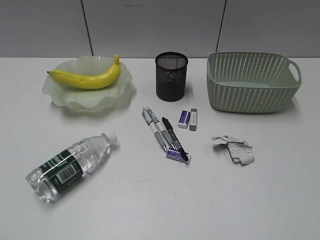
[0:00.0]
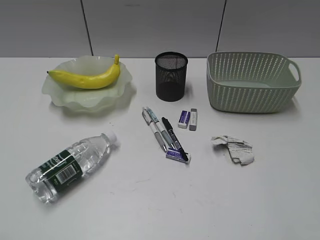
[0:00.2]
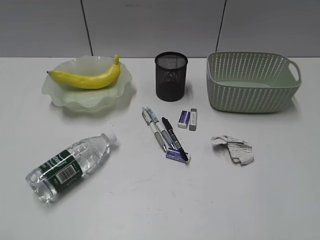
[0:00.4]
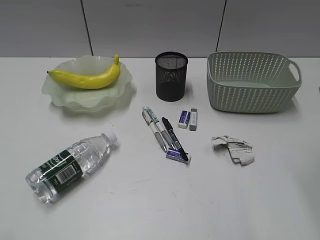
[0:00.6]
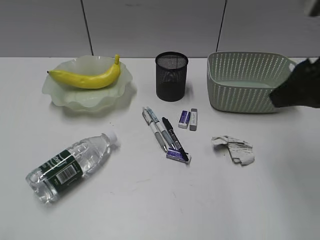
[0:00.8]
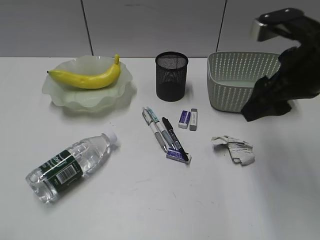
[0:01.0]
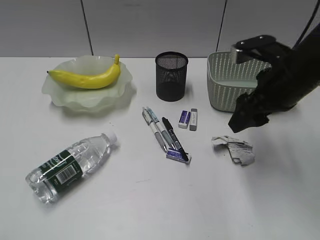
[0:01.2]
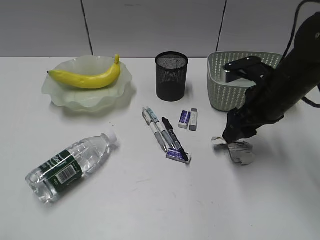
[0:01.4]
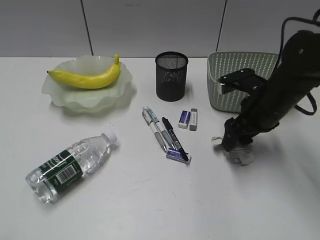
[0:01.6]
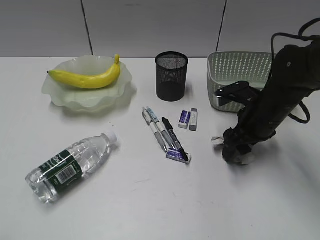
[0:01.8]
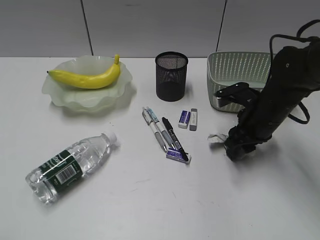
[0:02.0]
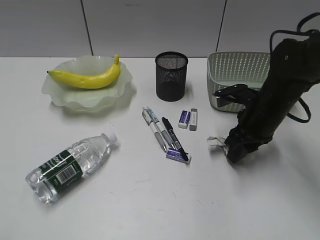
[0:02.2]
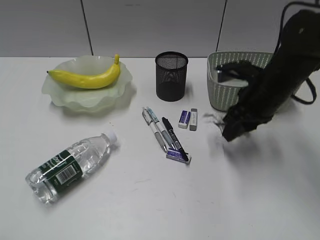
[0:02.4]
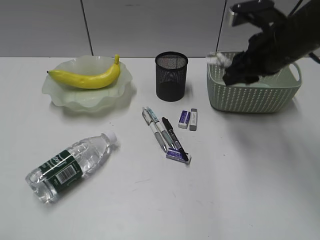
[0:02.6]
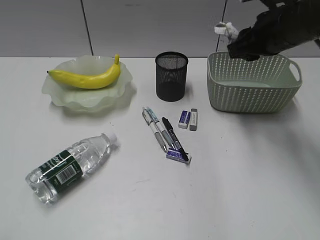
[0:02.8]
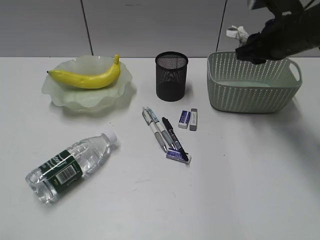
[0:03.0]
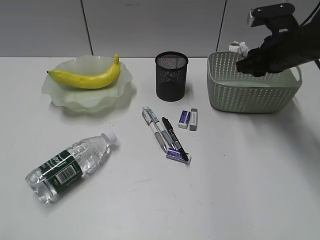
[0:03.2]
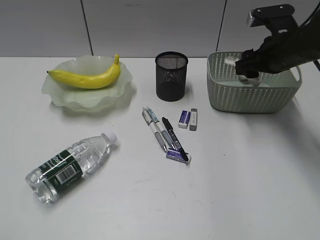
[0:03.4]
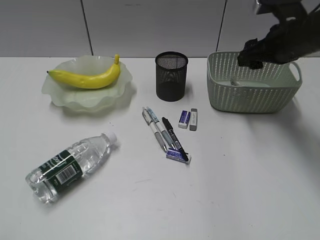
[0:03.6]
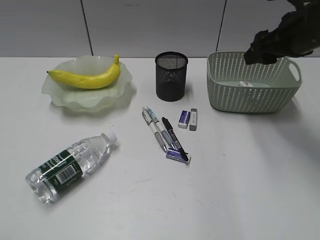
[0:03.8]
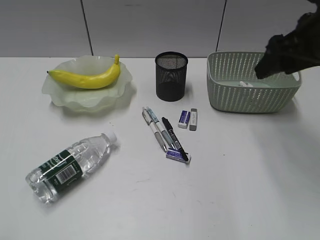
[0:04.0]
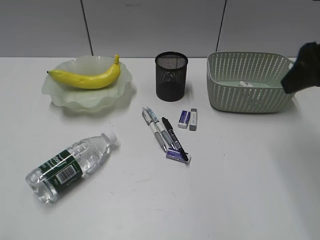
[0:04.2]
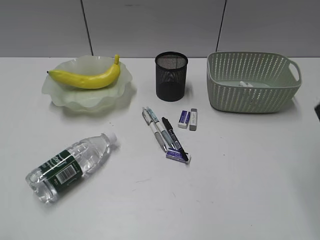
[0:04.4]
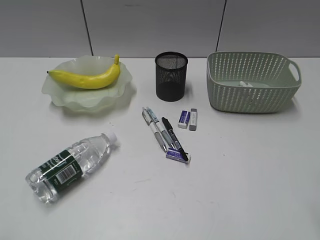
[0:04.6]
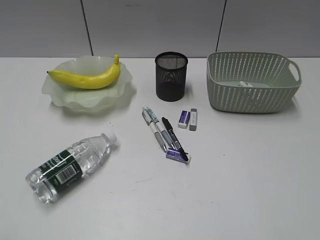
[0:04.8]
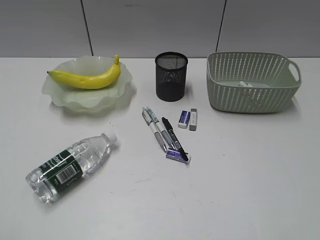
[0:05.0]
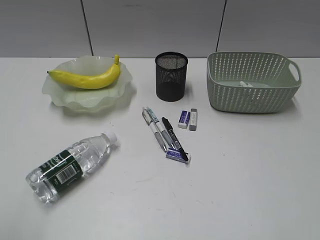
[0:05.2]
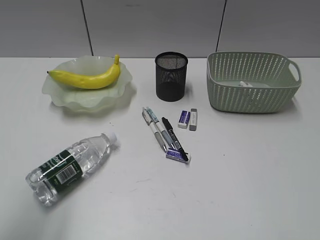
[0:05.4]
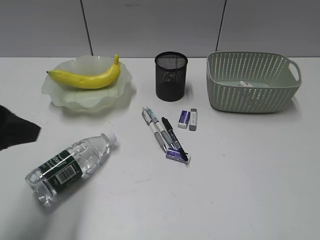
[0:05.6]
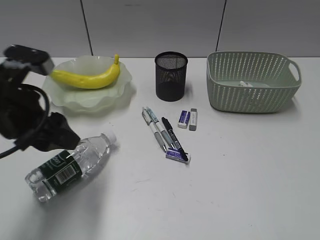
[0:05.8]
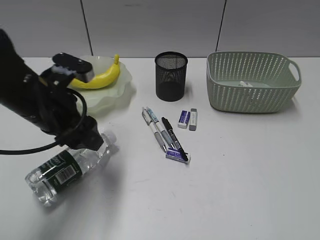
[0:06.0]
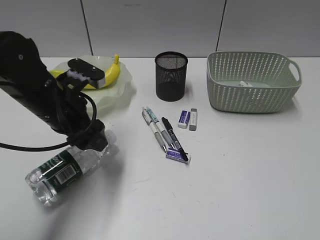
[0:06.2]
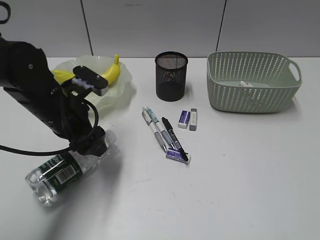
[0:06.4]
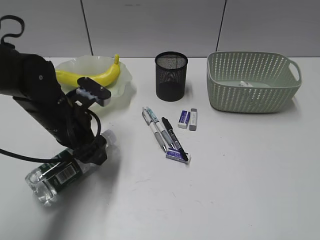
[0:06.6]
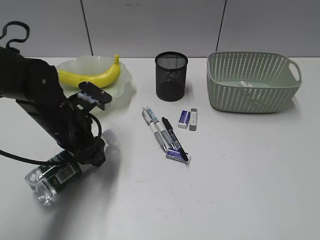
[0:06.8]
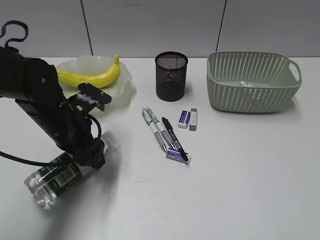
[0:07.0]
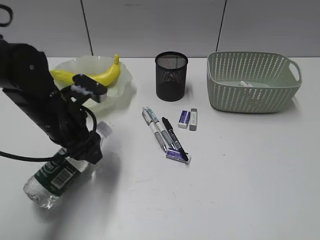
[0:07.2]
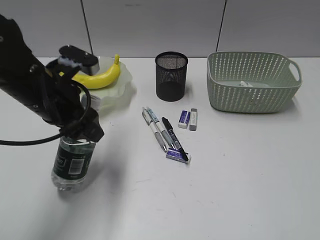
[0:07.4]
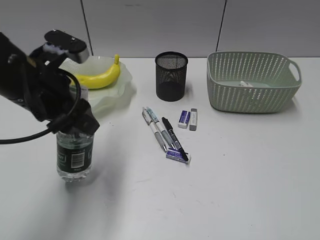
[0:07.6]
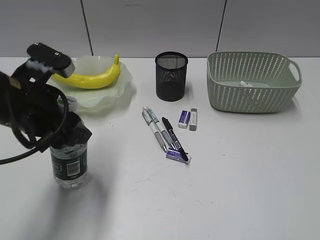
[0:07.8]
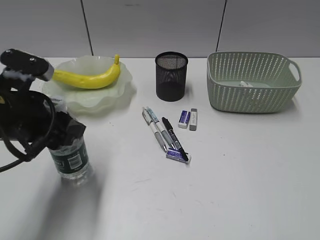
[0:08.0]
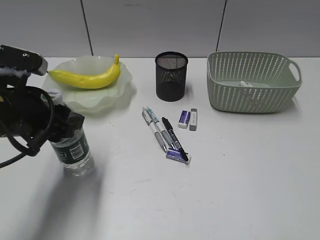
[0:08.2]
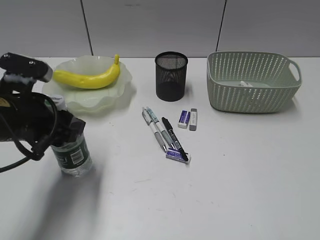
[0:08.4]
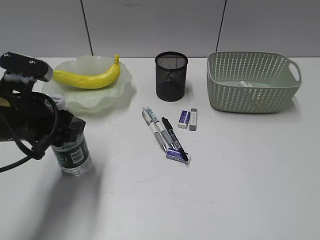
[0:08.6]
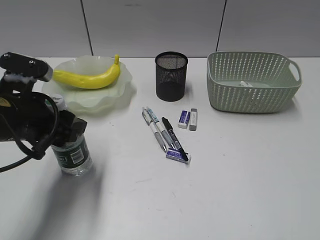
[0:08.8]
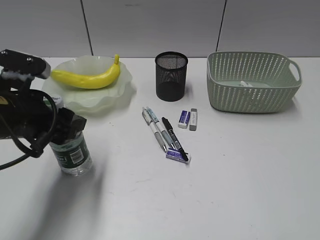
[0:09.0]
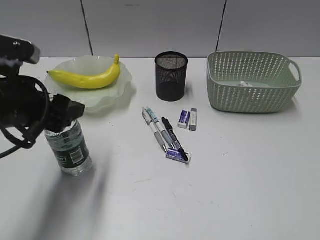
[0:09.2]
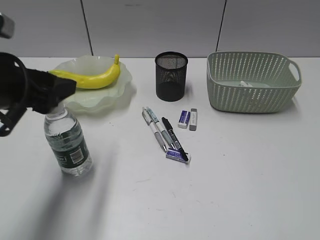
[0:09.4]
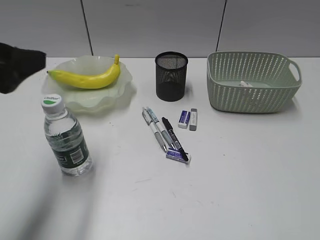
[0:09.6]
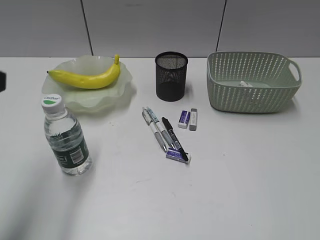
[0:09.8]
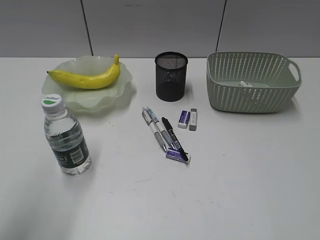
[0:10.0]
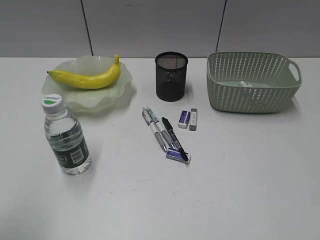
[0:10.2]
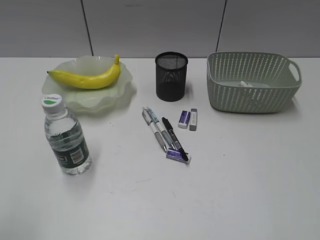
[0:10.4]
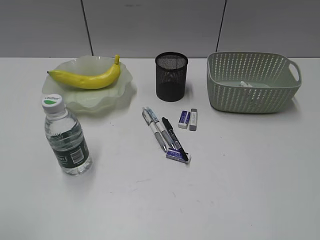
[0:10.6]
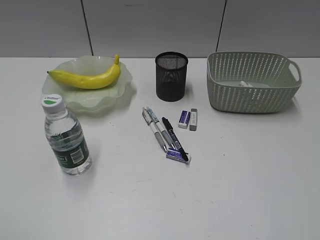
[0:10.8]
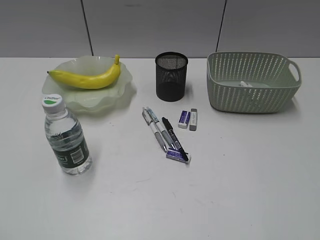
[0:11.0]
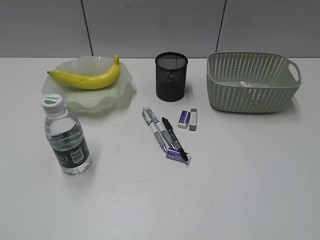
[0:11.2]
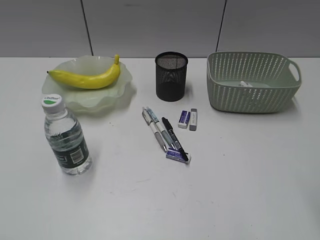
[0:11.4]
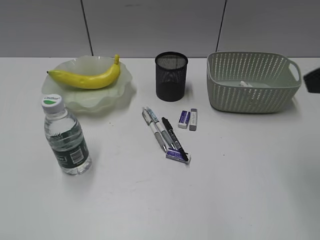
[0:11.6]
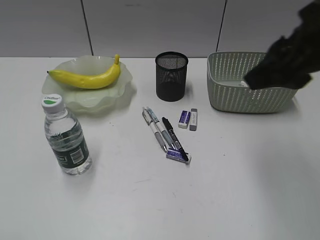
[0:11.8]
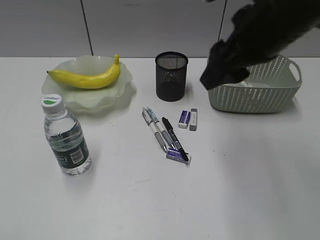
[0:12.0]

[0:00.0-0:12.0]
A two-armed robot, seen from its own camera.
Step, 0:00.0 to 0:02.0: Grasp the waste paper with right gripper.
Step, 0:02.2 to 0:03.6: Place the waste paper in the basket with right gripper.
Step, 0:03.8 to 0:06.8: Grasp the bottle with left gripper.
Step, 0:07.0 to 0:09.4: Stand the bottle with left gripper.
0:00.0 to 0:01.6: The right gripper goes approximately 35 cm forward and downward.
0:01.6 to 0:03.0: The right gripper goes some 10 cm upward and forward, and closes its fingers.
0:03.0 to 0:04.4: The right gripper shifts some 20 cm backward and upward, and opens.
0:04.4 to 0:06.0: The right gripper shifts approximately 20 cm backward; the left gripper heads forward and to the right, covering some 30 cm, and opens.
0:06.0 to 0:07.6: The left gripper goes downward and returns, roughly 5 cm each way.
0:07.6 to 0:09.0: The left gripper ends up some 5 cm from where it was.
0:09.0 to 0:10.4: The left gripper travels backward, upward and to the left by about 20 cm.
0:10.4 to 0:12.0: The right gripper is displaced forward and to the left by some 30 cm.

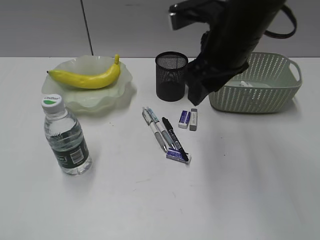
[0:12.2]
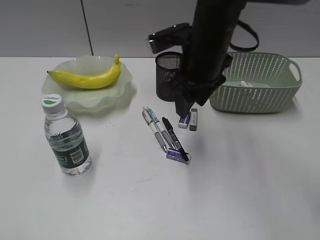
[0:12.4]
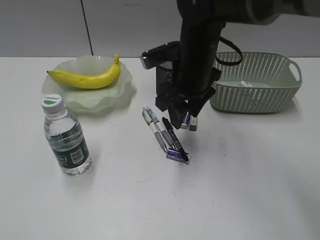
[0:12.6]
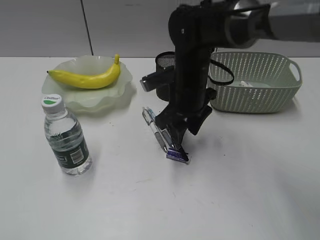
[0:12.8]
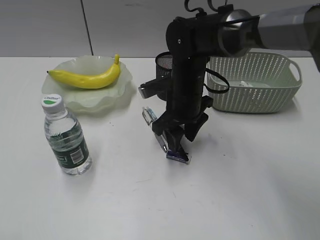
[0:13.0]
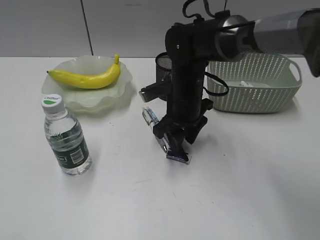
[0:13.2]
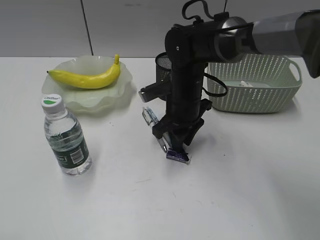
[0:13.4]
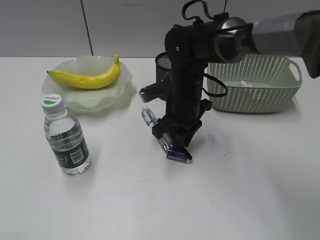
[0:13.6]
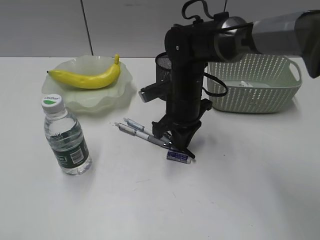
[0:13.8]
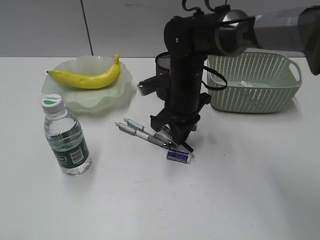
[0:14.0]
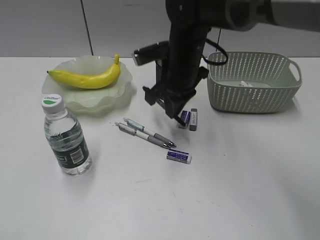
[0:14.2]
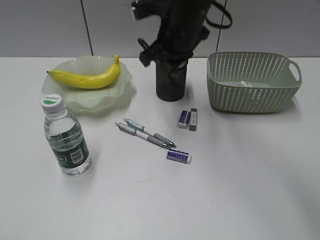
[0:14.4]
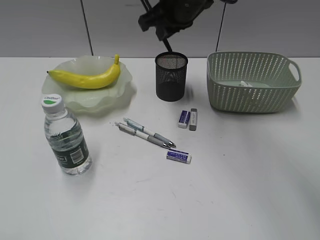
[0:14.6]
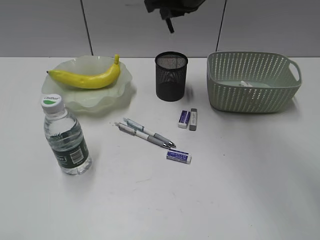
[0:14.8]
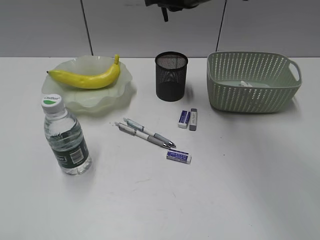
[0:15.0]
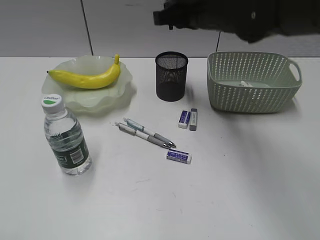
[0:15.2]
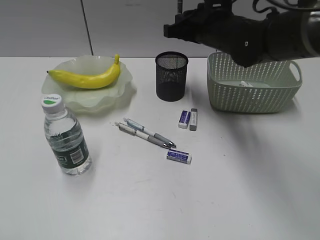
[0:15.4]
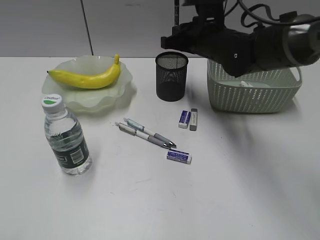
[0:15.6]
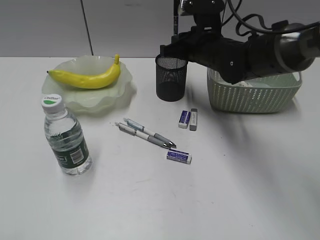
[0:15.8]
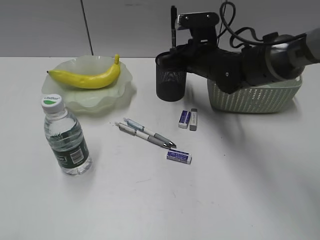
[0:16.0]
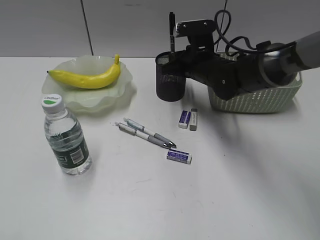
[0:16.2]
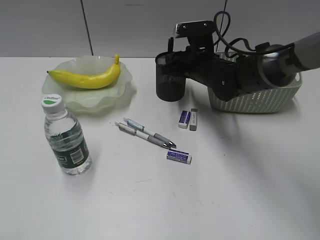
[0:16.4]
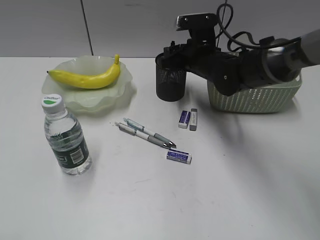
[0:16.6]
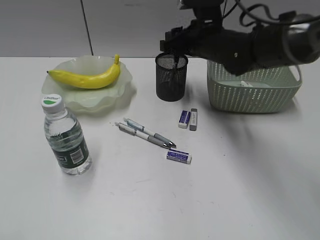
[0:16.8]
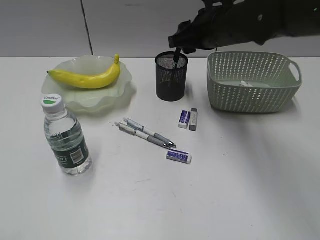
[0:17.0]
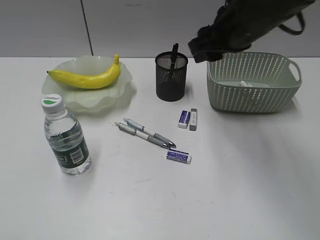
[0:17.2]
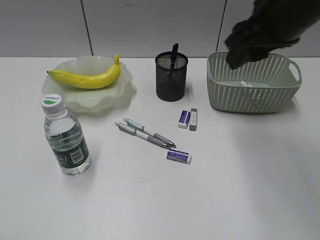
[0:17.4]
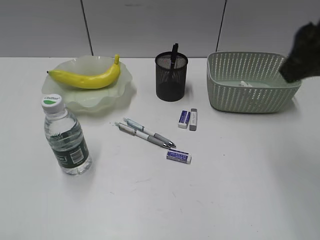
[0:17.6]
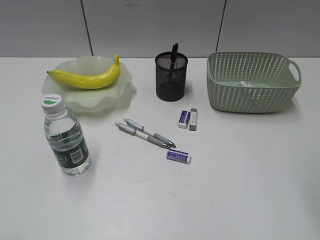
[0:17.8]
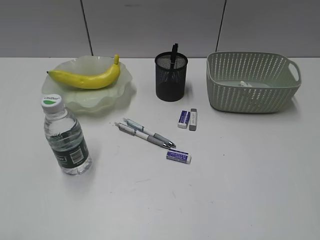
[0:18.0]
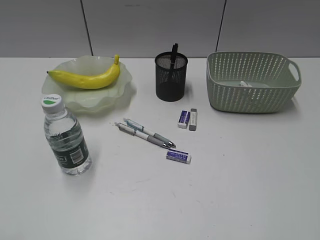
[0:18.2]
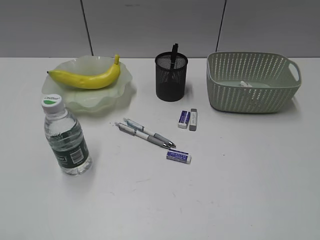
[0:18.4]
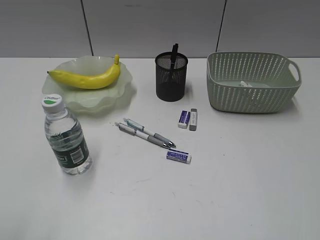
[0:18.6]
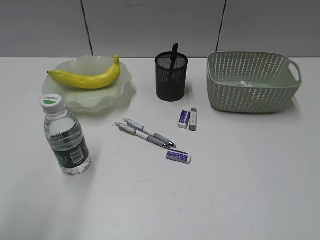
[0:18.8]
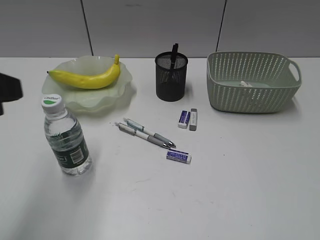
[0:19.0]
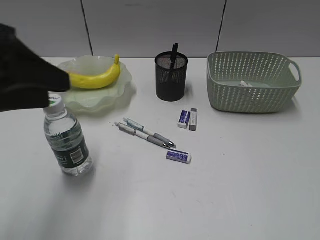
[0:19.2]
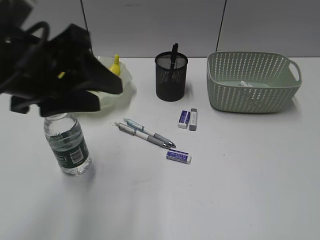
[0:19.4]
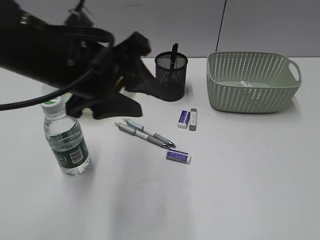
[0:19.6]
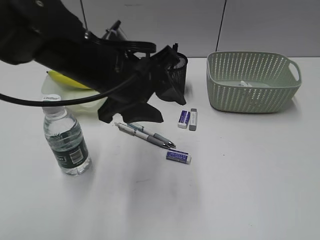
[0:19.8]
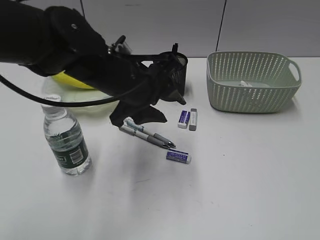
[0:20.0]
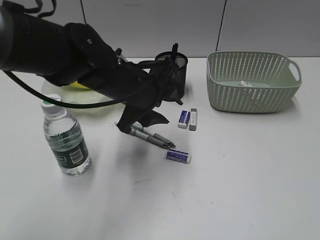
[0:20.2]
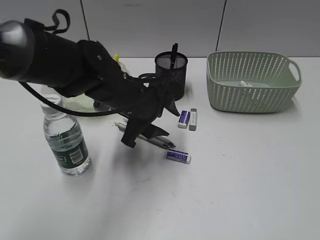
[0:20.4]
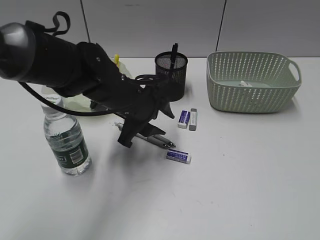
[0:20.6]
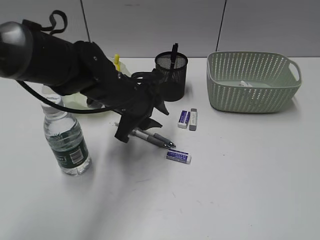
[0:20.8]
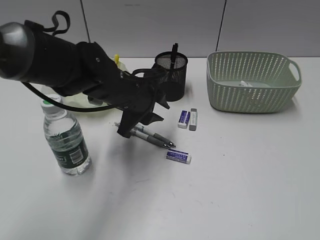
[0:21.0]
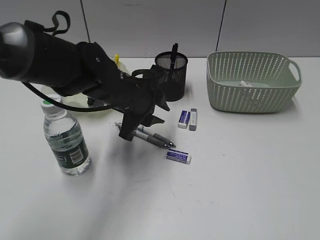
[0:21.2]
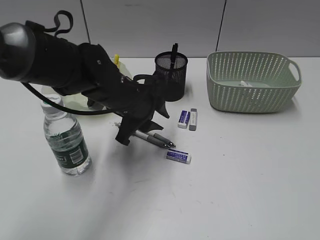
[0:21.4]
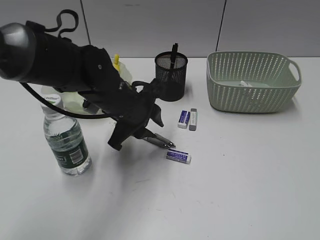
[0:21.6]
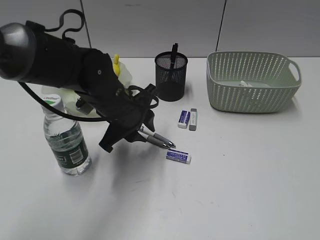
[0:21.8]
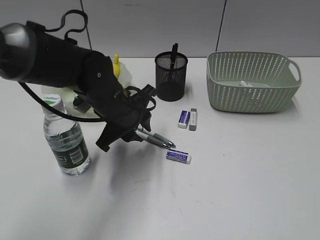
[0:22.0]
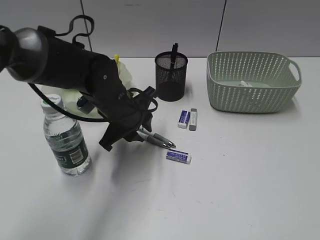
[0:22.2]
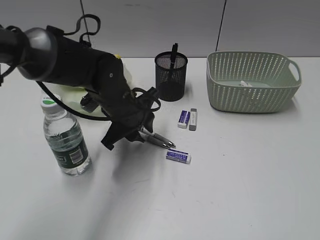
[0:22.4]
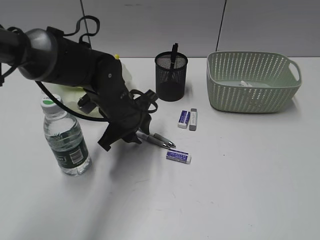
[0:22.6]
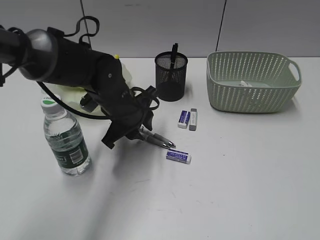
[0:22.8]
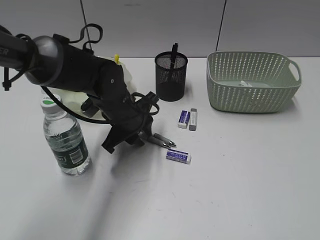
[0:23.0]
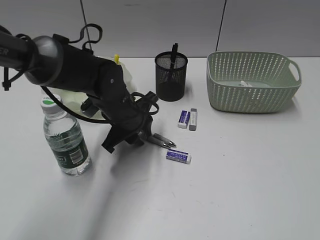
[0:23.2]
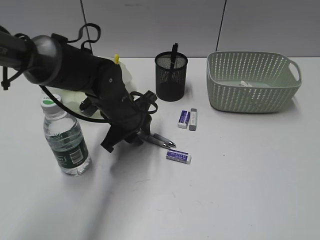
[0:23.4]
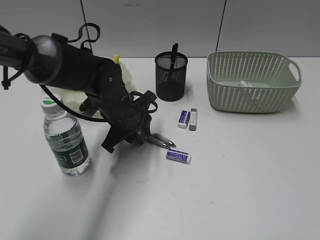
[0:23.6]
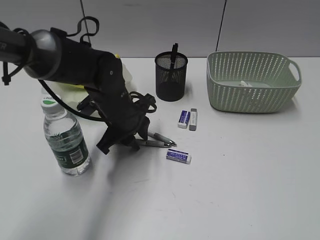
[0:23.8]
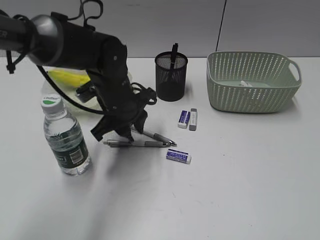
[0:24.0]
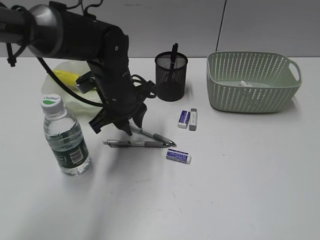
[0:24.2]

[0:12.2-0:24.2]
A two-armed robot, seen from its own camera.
Step, 0:13.8 to 0:16.6: Place the black pen in pen holder with right gripper.
0:12.2 to 0:13.8: The right gripper goes roughly 15 cm downward, and closes.
0:13.8 to 0:15.2: The right gripper goes roughly 15 cm upward.
0:15.2 to 0:16.6: The right gripper shifts some 15 cm downward, and opens its fingers.
0:16.6 to 0:18.2: The right gripper heads backward, to the right and upward, covering roughly 50 cm.
0:18.2 to 0:19.8: The right gripper moves about 5 cm. The left gripper travels forward and to the right by approximately 35 cm.
0:19.8 to 0:21.2: The left gripper travels downward and forward by about 10 cm, and closes its fingers.
0:22.6 to 0:24.2: The grippers move only a little.
